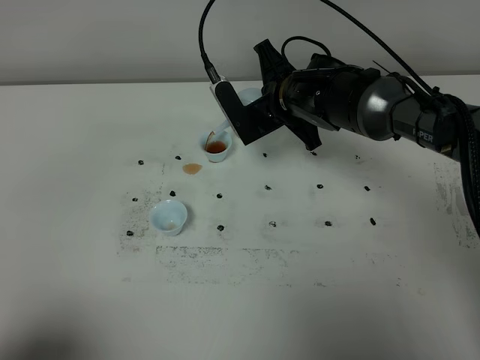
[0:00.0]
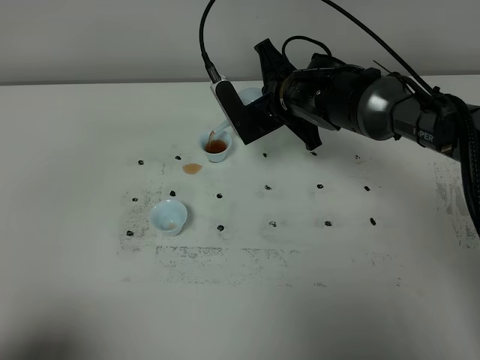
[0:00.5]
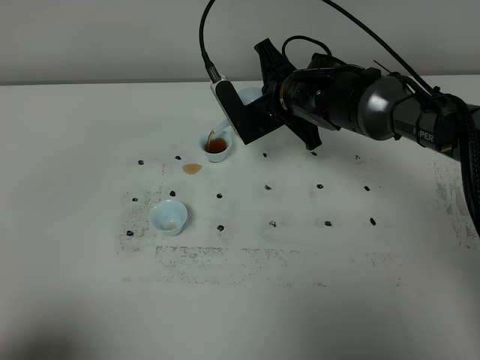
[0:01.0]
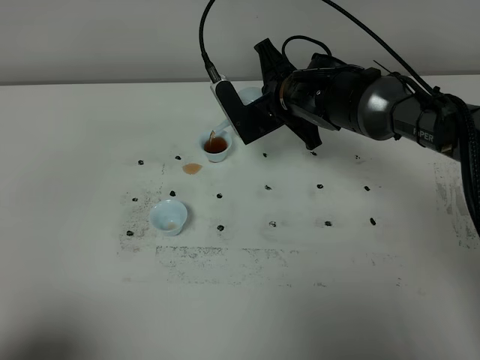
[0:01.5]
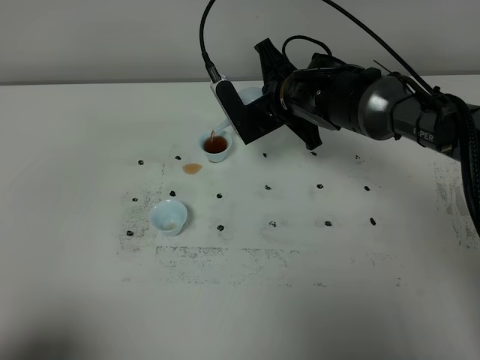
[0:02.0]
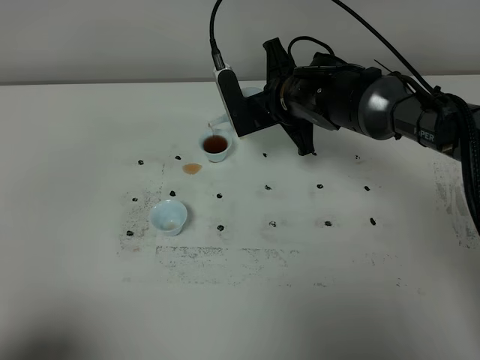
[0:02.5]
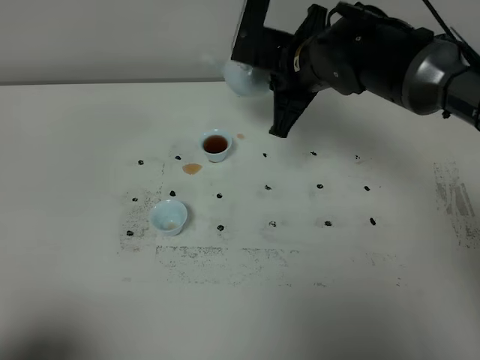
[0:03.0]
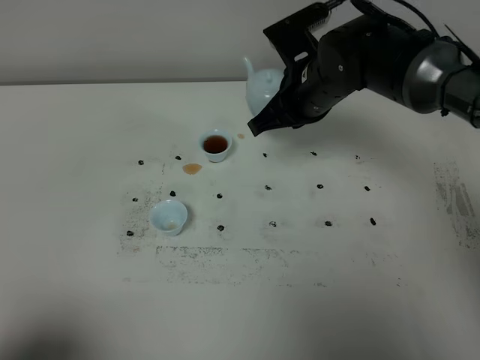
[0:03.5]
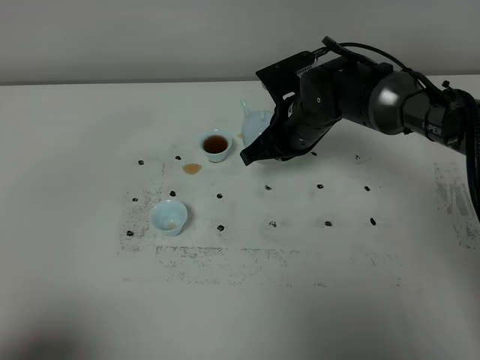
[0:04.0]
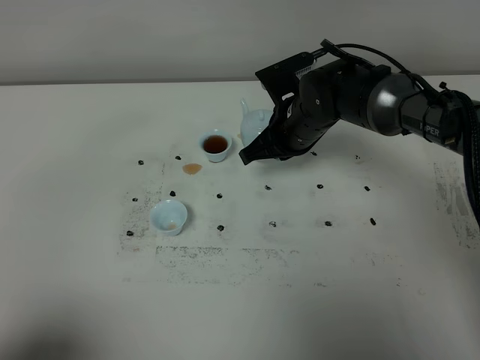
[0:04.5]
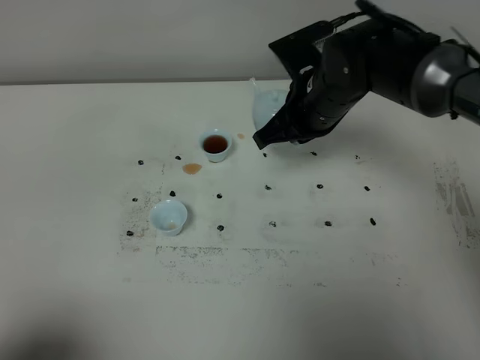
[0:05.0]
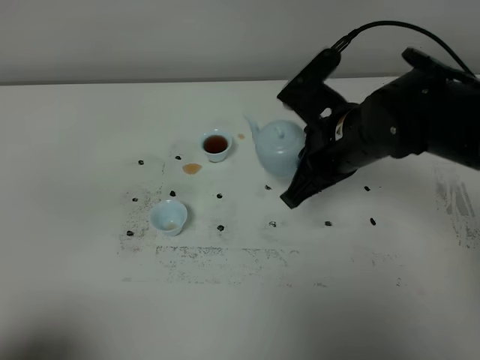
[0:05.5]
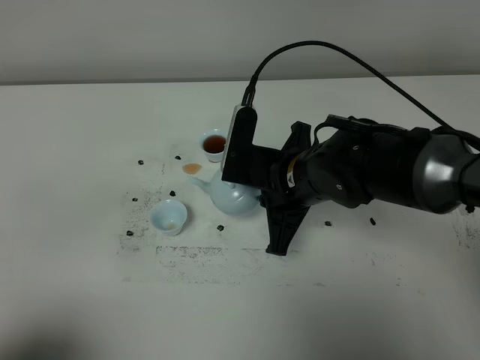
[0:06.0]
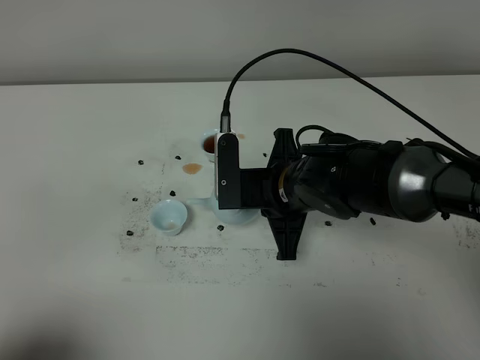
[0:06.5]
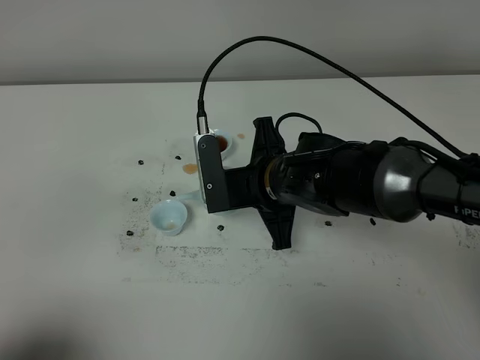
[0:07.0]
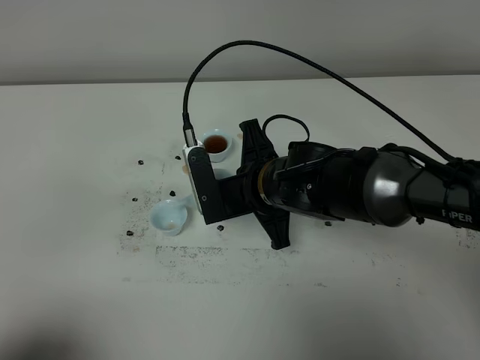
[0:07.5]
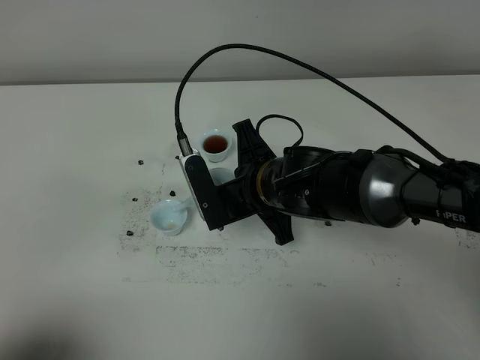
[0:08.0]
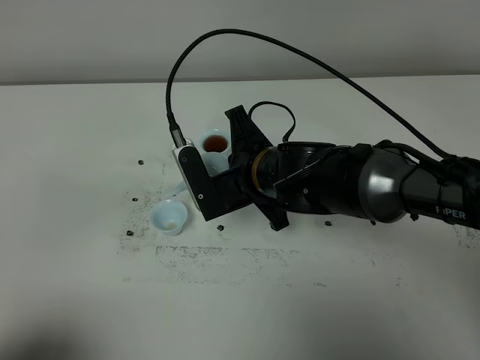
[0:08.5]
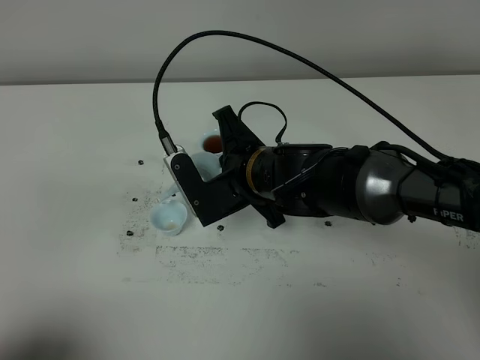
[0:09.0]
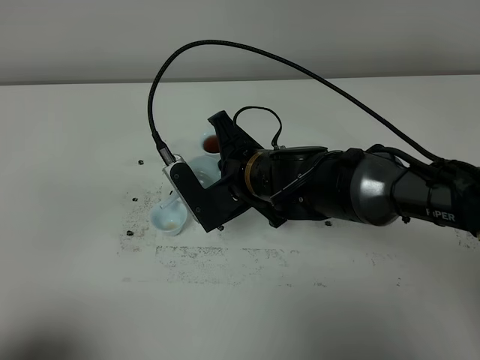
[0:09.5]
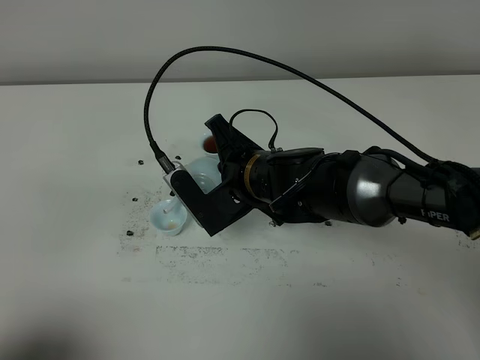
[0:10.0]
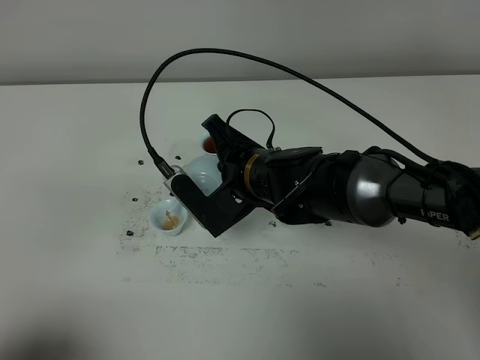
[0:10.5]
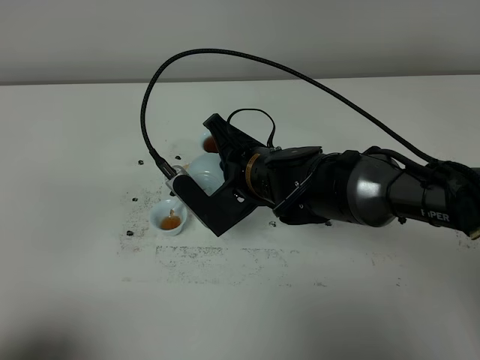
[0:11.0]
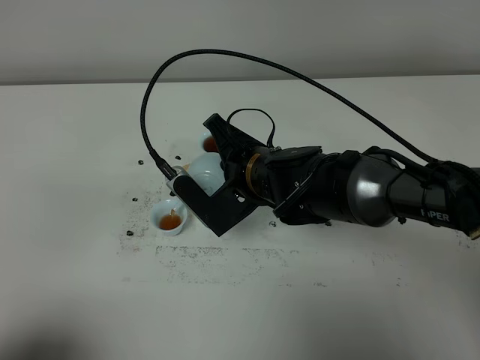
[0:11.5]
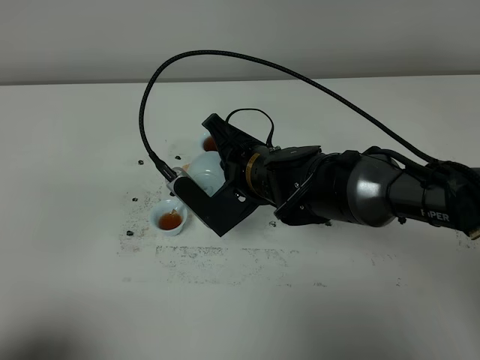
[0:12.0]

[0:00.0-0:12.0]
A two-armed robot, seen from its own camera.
Task of the whole recording: grasp the blue porcelain teapot and pour the tea into the two blue porcelain teacups one by one, put the blue porcelain teapot back in its original place.
0:00.0 to 0:02.0: Neither gripper changes place.
0:02.0 to 0:04.0: The right gripper reaches roughly 5 cm upward, then returns.
0:04.0 to 0:06.0: The right gripper travels backward by about 10 cm.
0:08.0 to 0:10.0: There are only small adjustments of the grippers.
0:10.0 to 0:12.0: The grippers stay close to where they were, moving slightly.

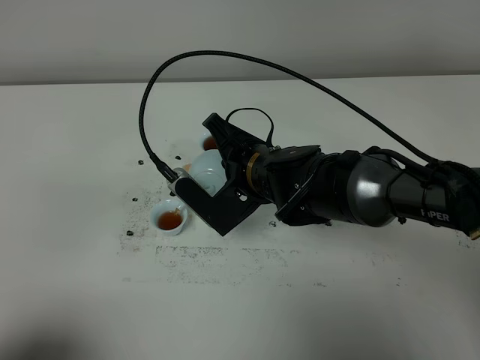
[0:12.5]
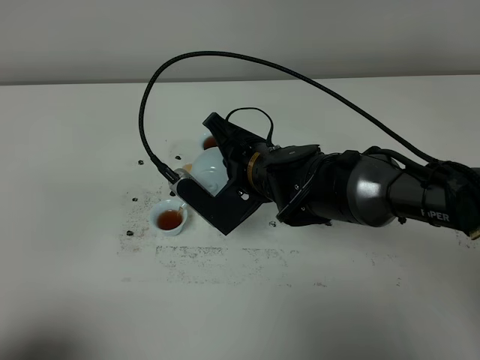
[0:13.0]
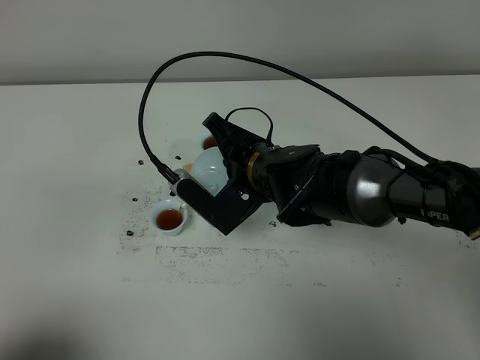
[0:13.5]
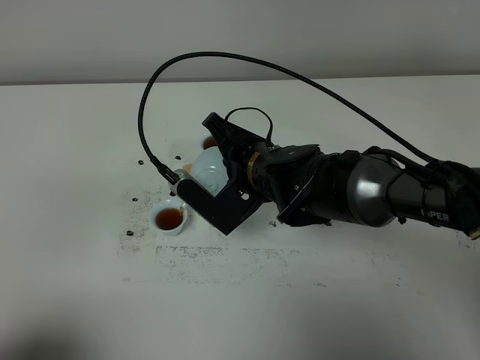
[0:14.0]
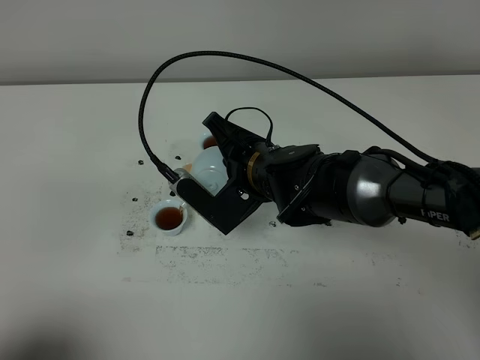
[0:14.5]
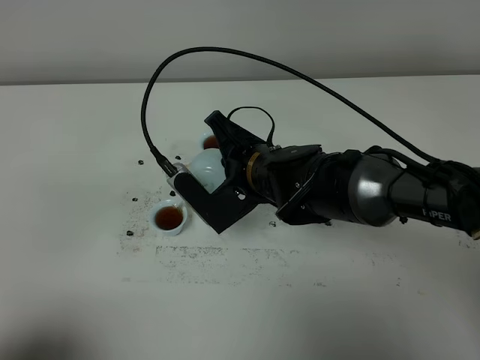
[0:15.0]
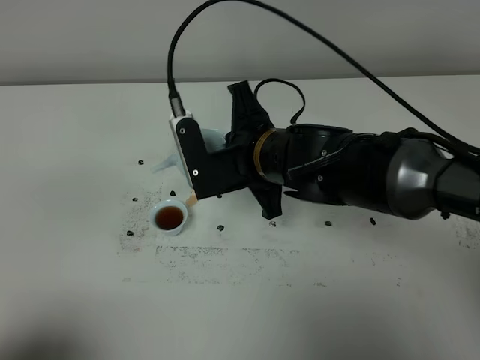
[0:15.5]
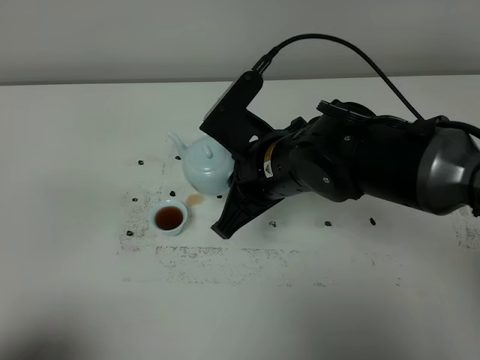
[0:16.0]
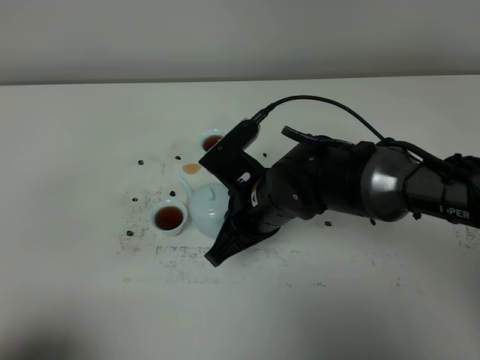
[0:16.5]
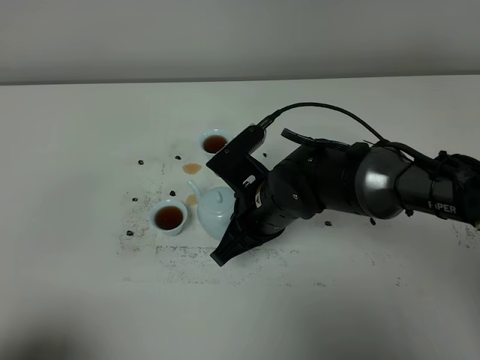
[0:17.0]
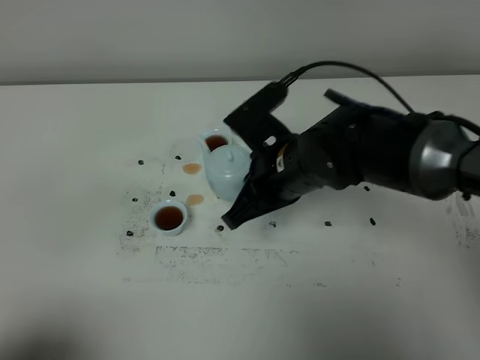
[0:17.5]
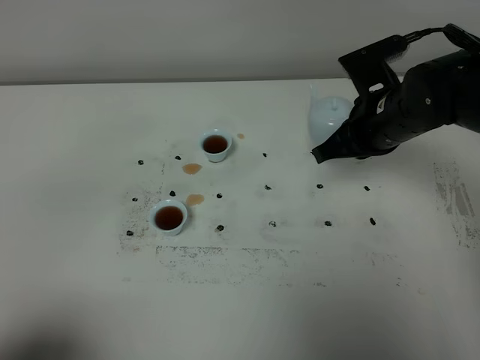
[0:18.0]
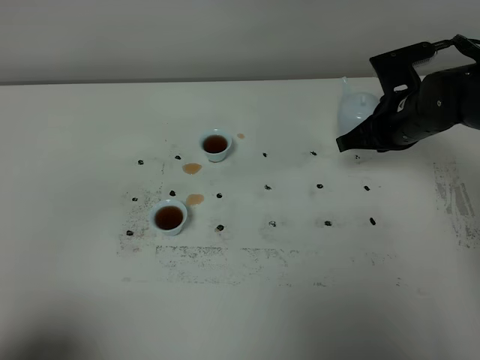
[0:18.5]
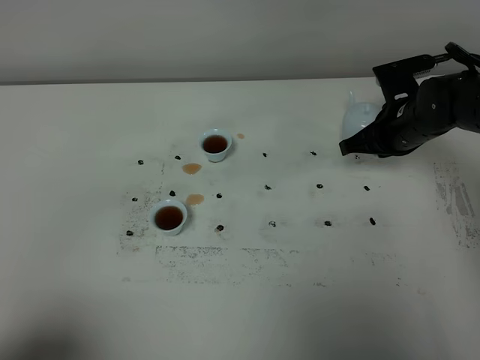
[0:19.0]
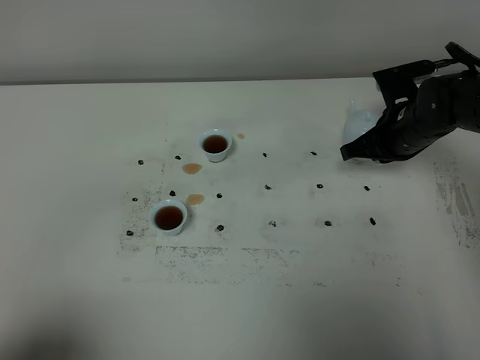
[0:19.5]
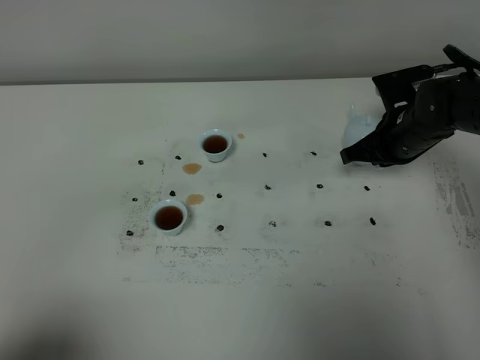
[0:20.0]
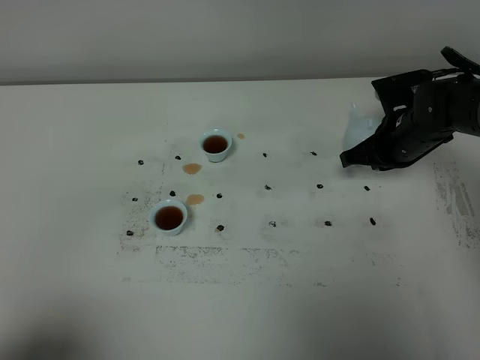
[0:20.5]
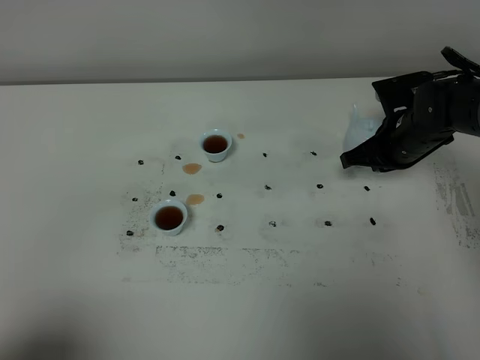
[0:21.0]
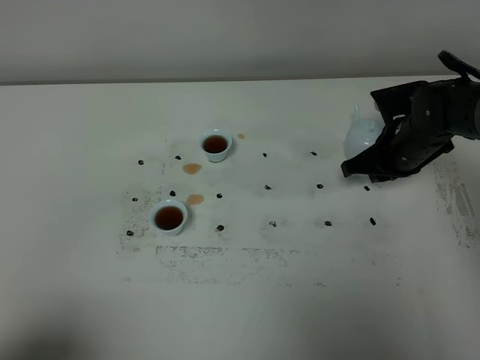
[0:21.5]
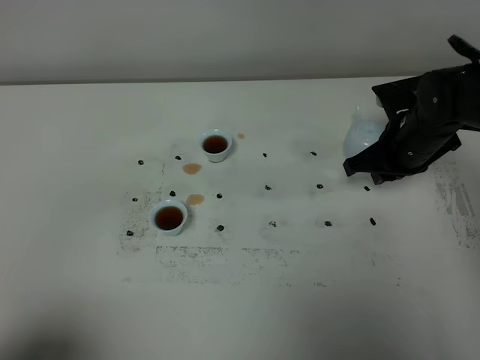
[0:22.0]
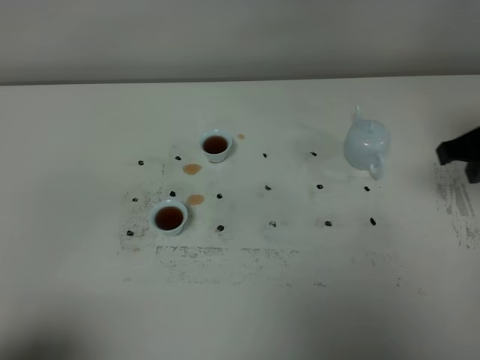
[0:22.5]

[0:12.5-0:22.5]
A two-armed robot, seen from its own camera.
Task of the whole recording: grasp the blue porcelain teapot and pour the tea into the two blue porcelain teacups one by one, put the blue porcelain teapot back in its original place.
Step, 0:12.5 to 0:15.0: Pour tea into the teacup with the right gripper.
0:12.5 to 0:14.5: Both grippers stay about where they are.
0:16.5 to 0:18.5: The right gripper heads to the right and forward, covering roughly 20 cm.
0:18.5 to 0:20.5: The grippers make only small movements.
0:20.5 to 0:22.5: The right gripper moves upward, backward and to the right, roughly 20 cm, and opens its fingers.

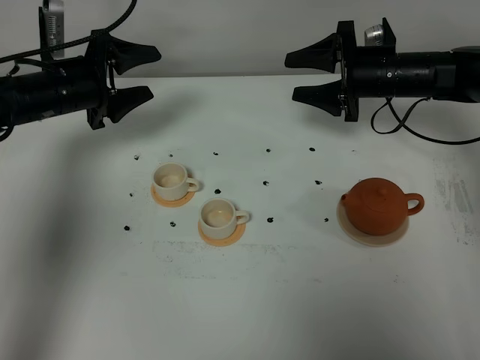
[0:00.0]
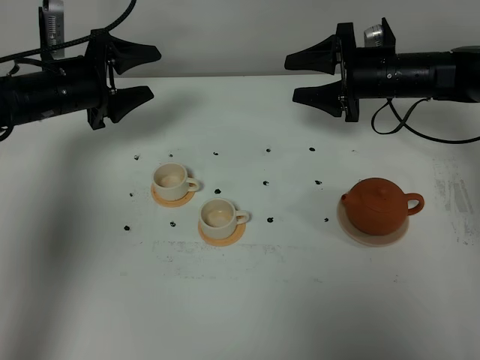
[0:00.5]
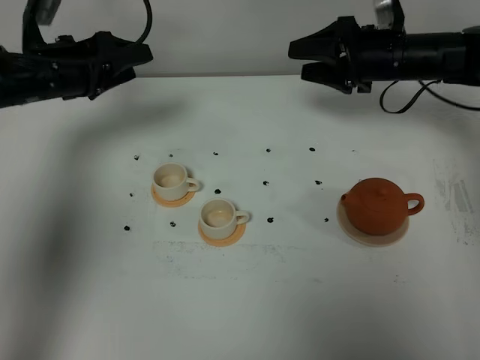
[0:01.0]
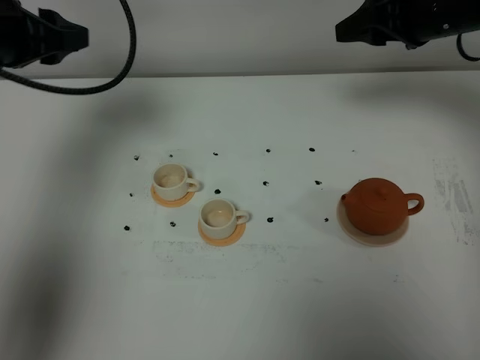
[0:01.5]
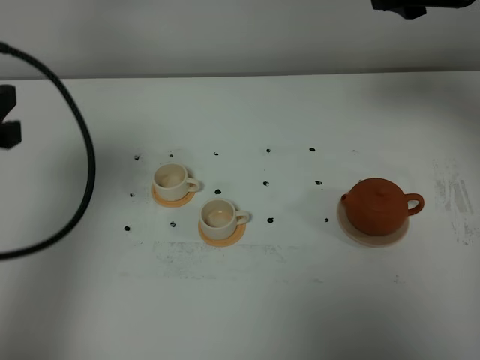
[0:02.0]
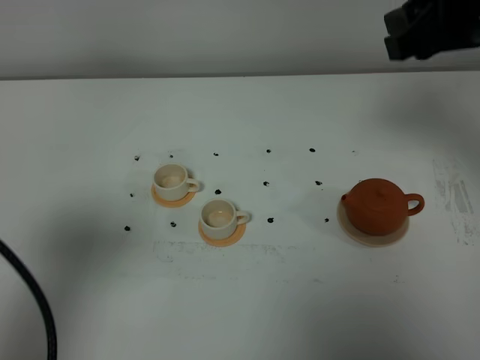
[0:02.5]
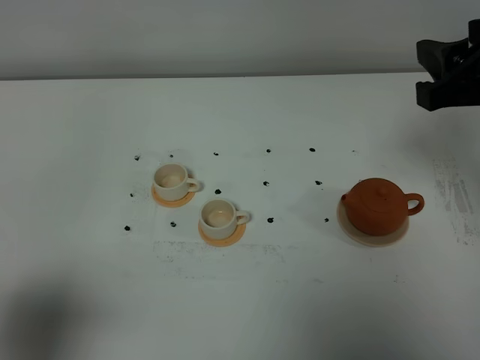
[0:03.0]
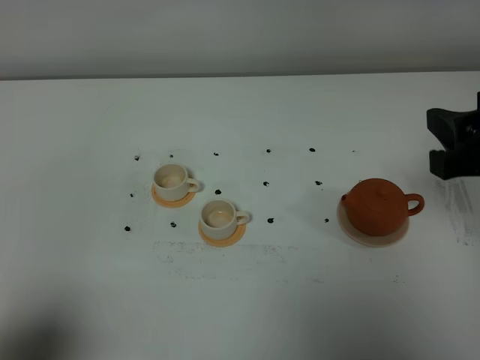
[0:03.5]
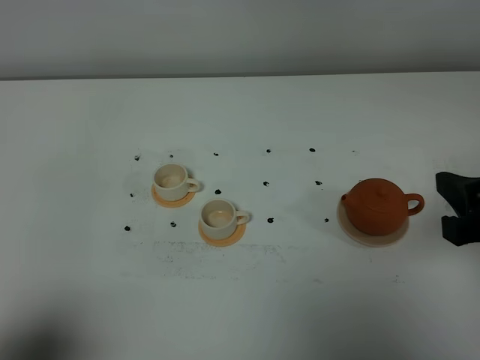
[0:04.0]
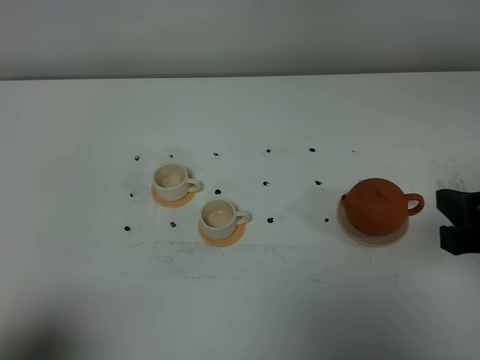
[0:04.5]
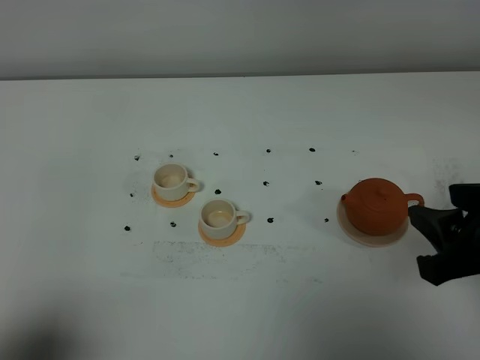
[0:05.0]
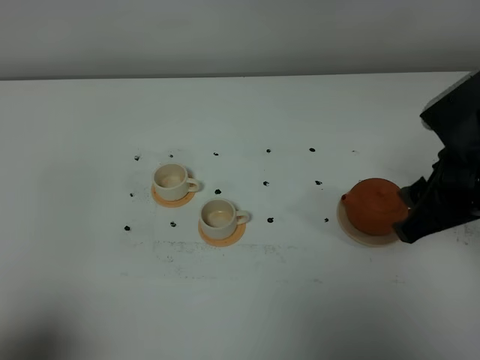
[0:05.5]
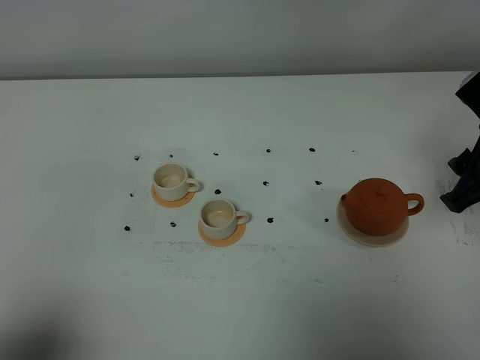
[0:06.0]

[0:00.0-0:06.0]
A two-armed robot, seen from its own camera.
Task of the whole recording: grasp the brown teapot and pour the tea into the two white teacups one by one, put the brown teapot back in its original place.
0:00.0 to 0:02.0: The left gripper is displaced backward and upward by roughly 25 cm. The right gripper moves upward and backward, roughly 25 cm.
0:02.0 to 0:04.0: The left gripper heads backward, covering some 25 cm, and closes up. The right gripper moves backward and downward, some 20 cm.
0:04.0 to 0:06.0: The right gripper moves forward, roughly 10 cm.
